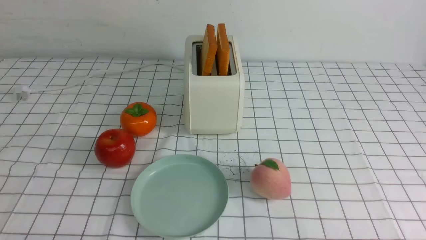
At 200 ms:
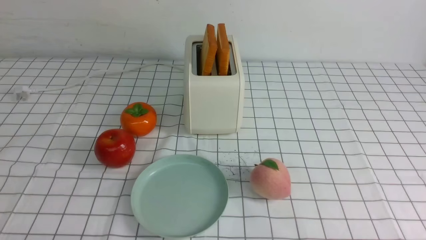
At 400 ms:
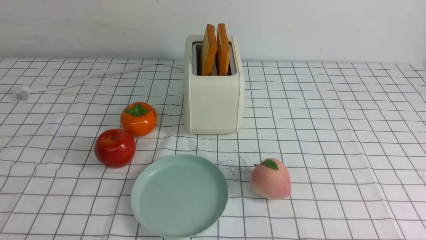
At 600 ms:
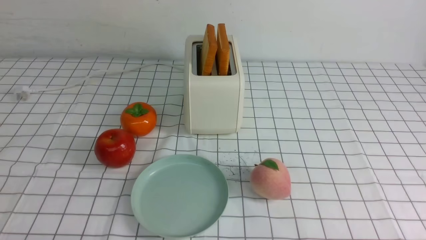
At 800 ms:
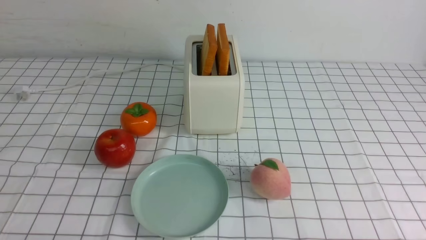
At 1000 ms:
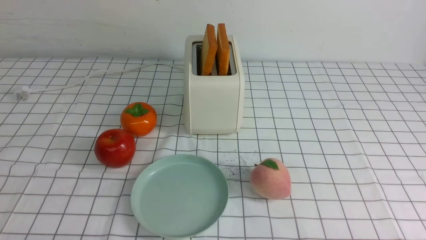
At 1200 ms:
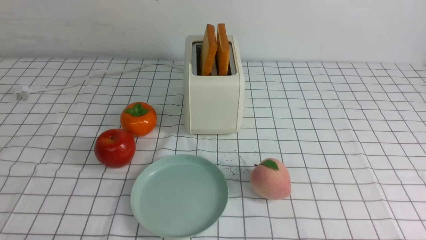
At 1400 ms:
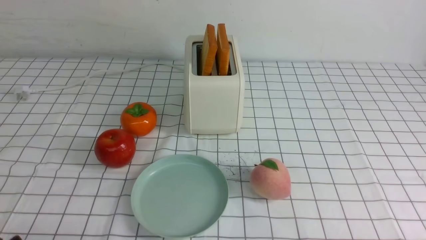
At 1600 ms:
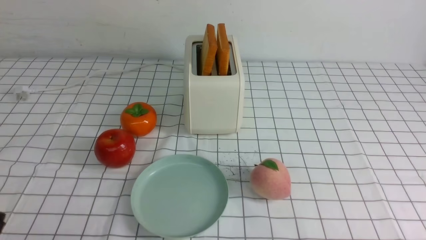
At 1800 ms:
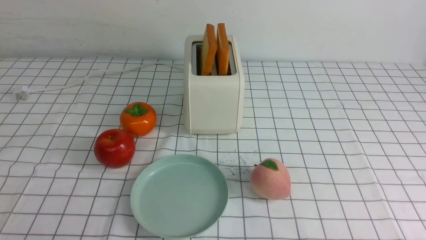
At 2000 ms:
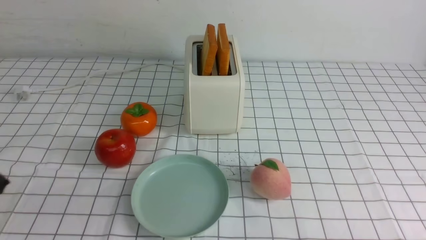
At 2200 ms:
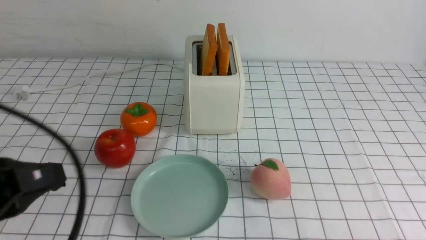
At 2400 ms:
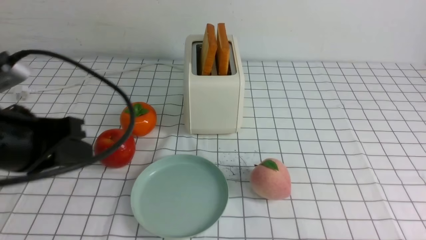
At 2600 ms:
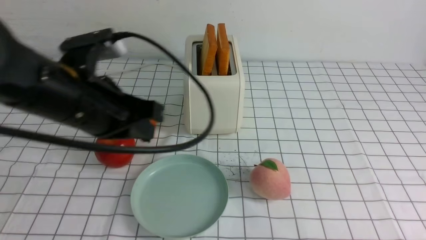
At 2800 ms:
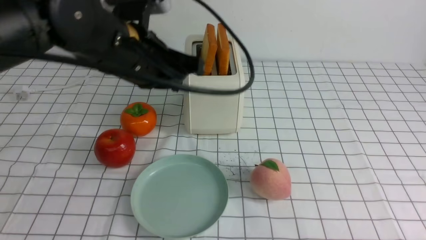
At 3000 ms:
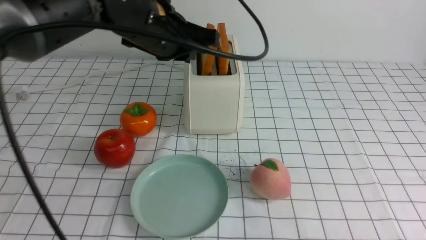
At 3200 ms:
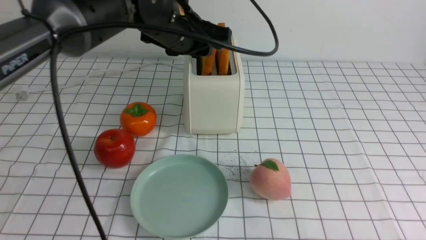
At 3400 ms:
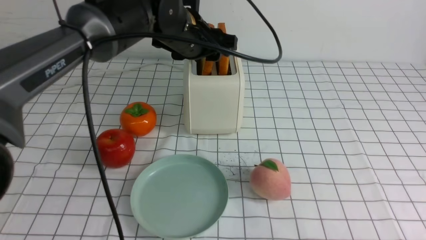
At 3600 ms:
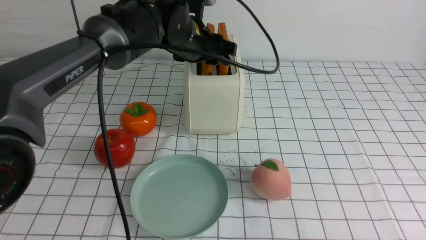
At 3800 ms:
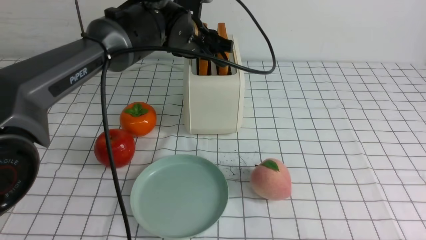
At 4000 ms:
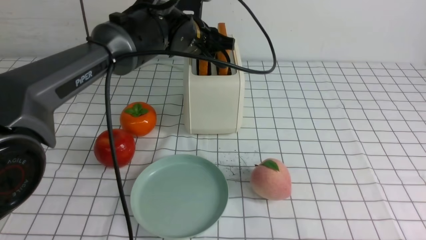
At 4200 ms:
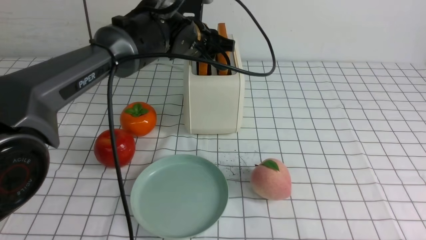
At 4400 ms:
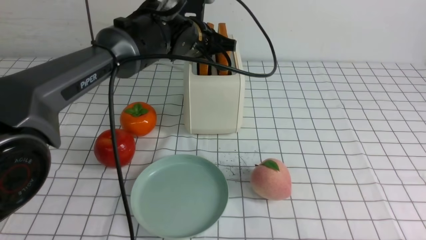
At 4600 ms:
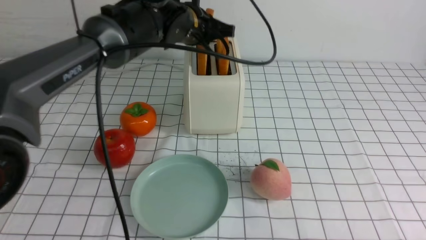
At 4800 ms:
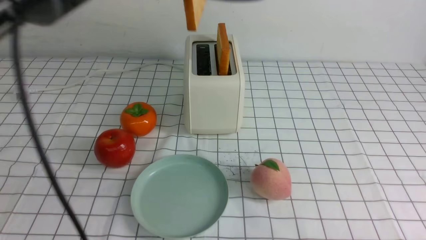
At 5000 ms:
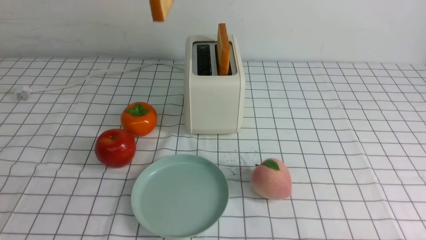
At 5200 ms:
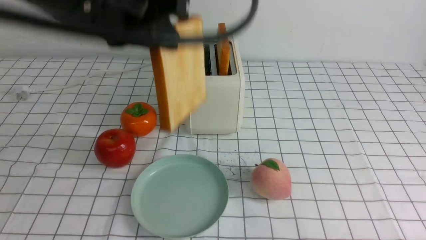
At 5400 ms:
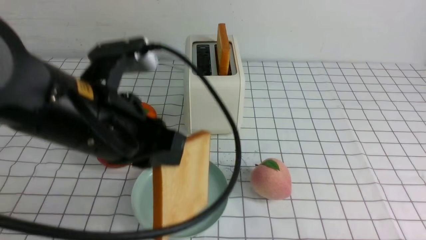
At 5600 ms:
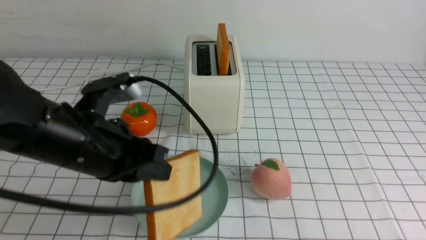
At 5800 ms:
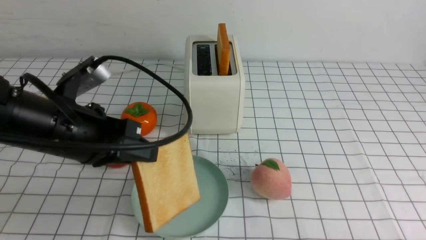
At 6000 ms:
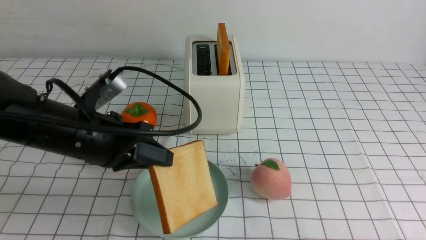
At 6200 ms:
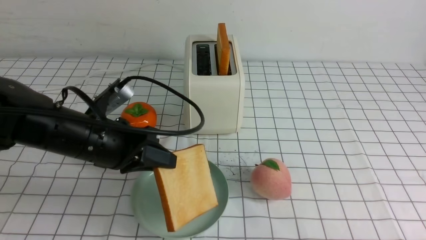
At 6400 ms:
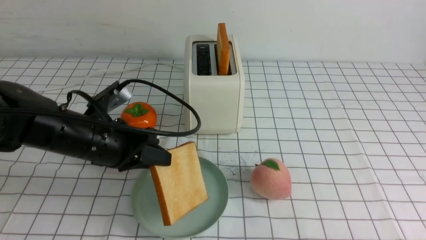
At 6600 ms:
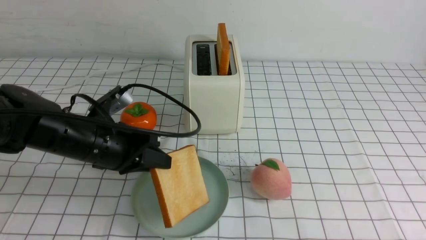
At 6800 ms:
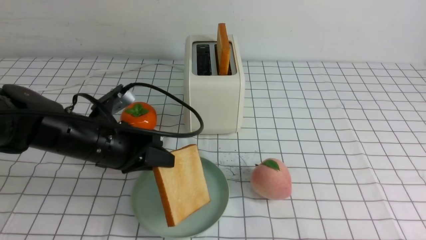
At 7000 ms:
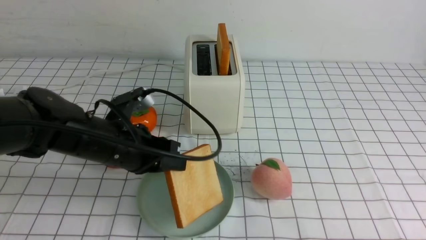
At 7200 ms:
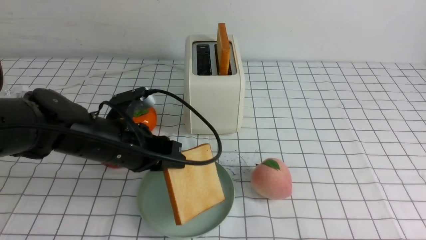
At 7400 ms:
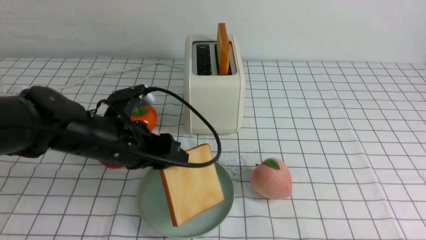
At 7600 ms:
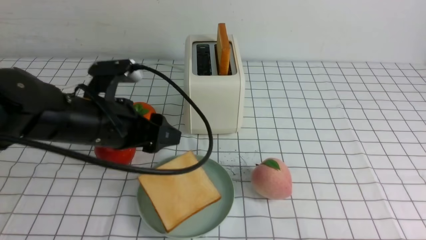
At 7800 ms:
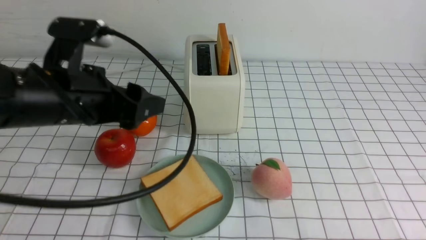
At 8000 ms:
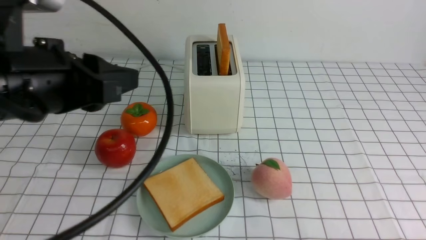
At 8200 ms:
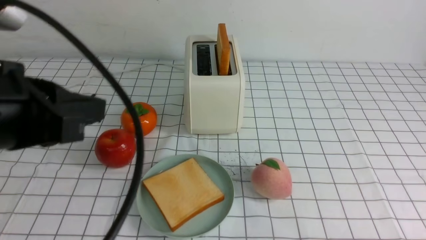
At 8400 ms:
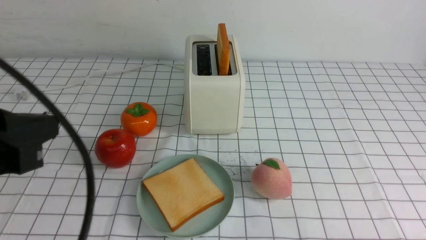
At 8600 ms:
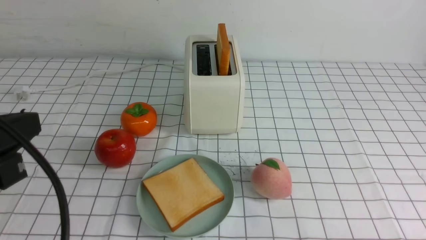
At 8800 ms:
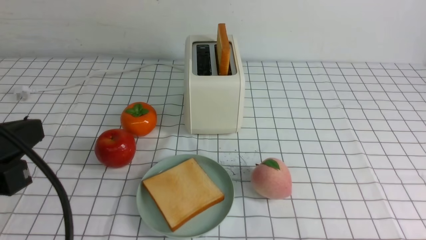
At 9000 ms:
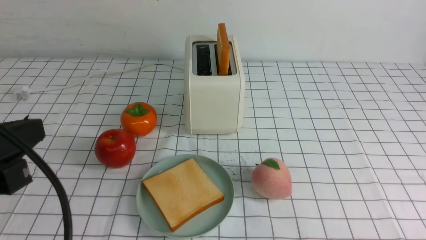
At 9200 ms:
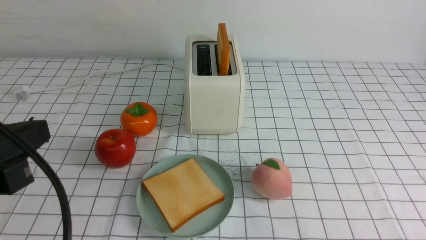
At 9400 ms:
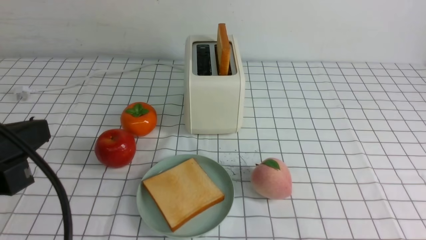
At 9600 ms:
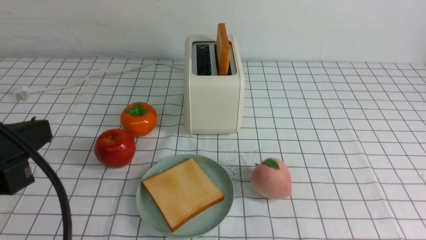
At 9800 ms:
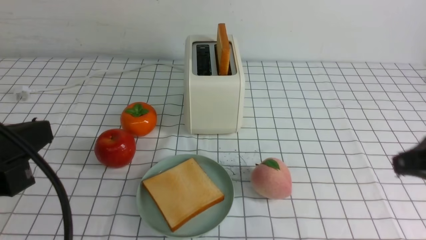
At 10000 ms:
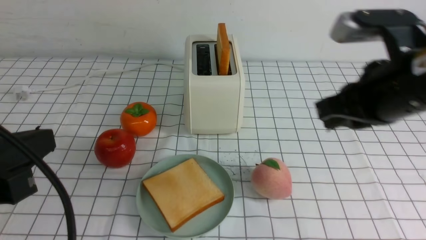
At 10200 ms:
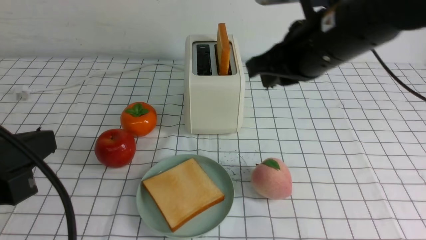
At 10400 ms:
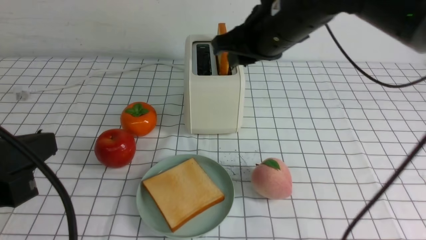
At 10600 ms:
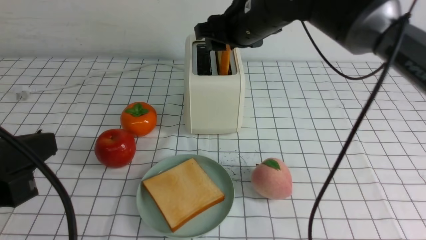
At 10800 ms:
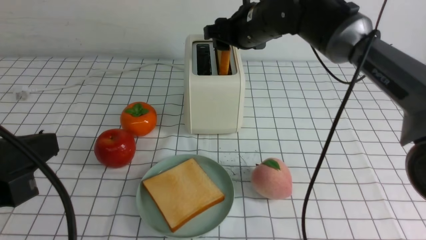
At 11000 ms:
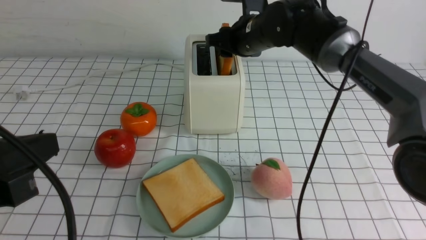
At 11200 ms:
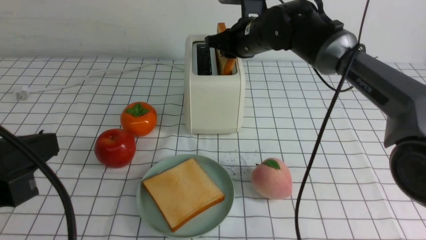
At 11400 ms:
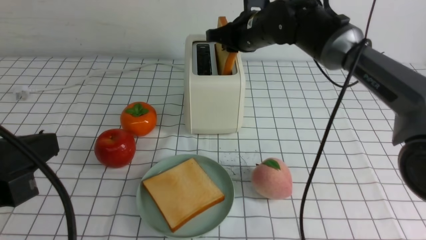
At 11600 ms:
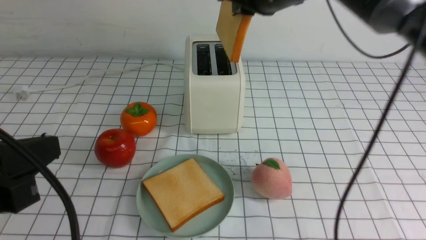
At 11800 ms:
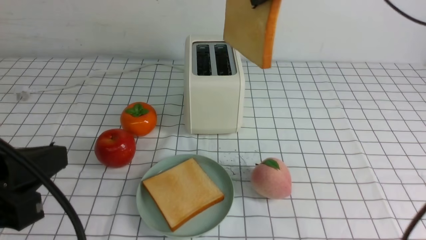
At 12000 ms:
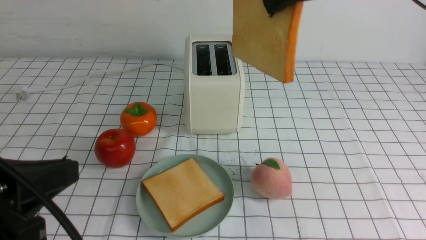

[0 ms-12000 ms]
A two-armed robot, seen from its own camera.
Task of the whole recording: take toasted bread from bread machine on white checkered table place on plate.
Step, 0 ms to 4600 ms: use the left arm to take out a slice of bread.
Step, 4800 ms to 7600 ms: use the left arm to put a slice of bread into the empty plate.
Step, 7800 ms to 11600 ms: use the right arm to take out a slice of bread.
1600 ms to 3000 ms: The left gripper moves forward, to the right and upward, approximately 40 cm.
3000 ms to 4400 ms: The left gripper heads forward, covering about 10 cm, and opens, then closes once more.
4400 ms to 6000 ms: The left gripper is displaced backward and to the left by some 20 cm.
6000 ms to 7600 ms: The left gripper opens.
7600 ms to 9000 ms: The left gripper shifts roughly 20 cm backward and to the left, and closes.
9000 ms to 10400 ms: The right gripper is displaced forward, to the left and upward by approximately 40 cm, and closes and opens again.
10400 ms to 12000 ms: The right gripper shifts approximately 10 cm upward, and goes forward and returns, roughly 10 cm each way.

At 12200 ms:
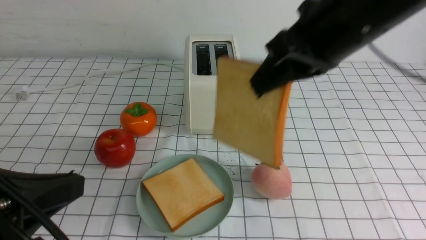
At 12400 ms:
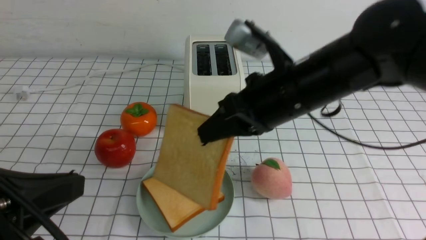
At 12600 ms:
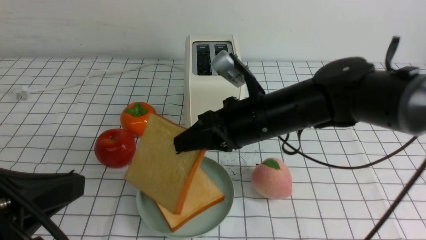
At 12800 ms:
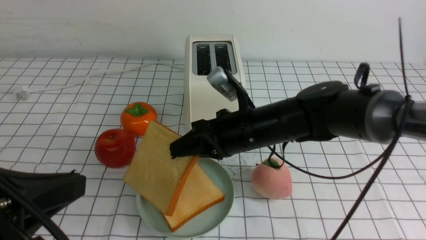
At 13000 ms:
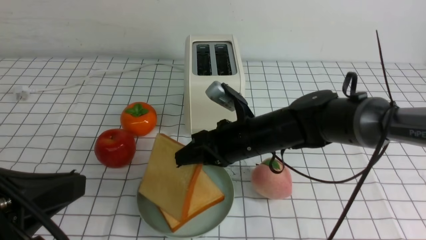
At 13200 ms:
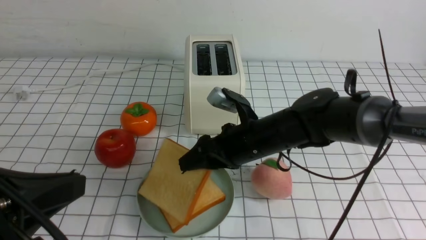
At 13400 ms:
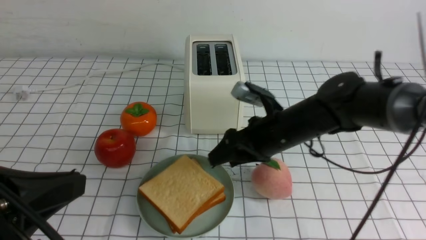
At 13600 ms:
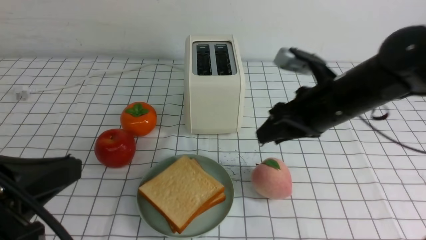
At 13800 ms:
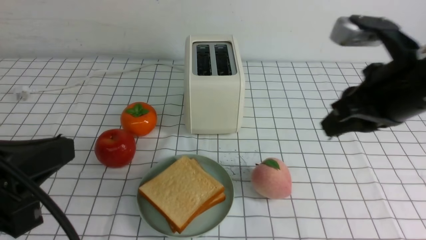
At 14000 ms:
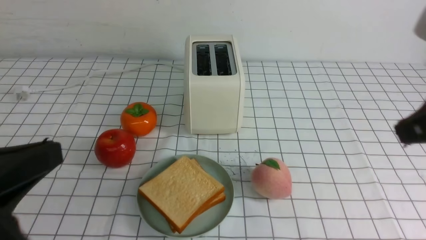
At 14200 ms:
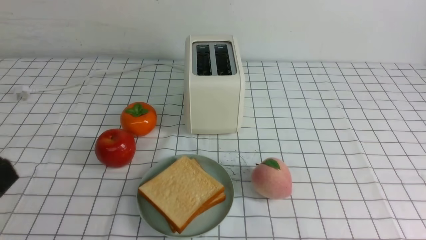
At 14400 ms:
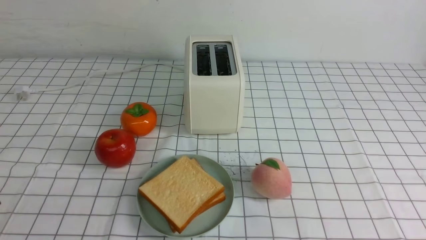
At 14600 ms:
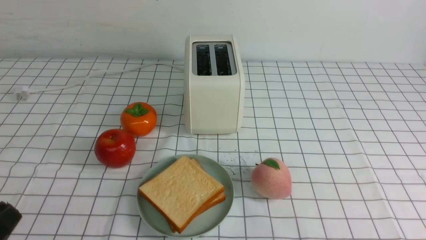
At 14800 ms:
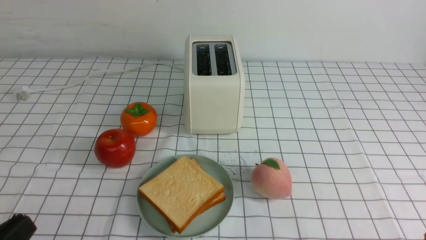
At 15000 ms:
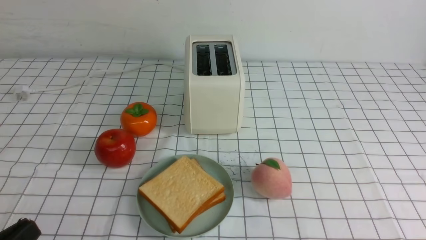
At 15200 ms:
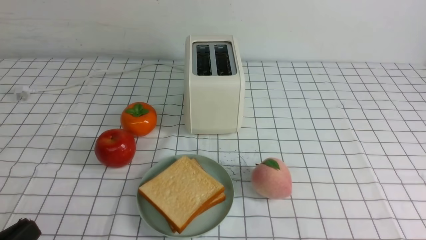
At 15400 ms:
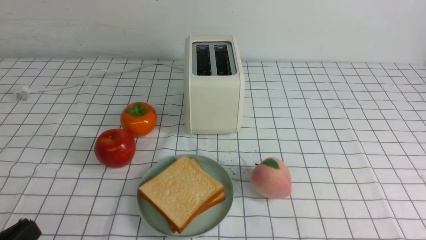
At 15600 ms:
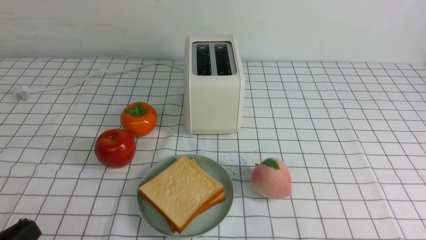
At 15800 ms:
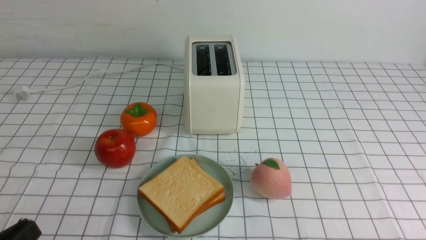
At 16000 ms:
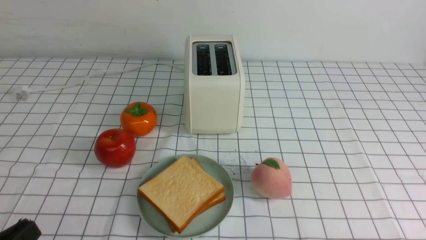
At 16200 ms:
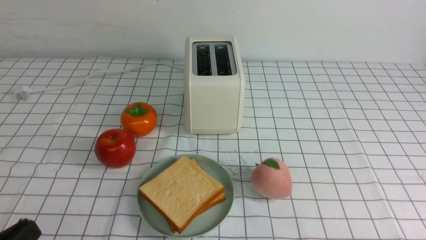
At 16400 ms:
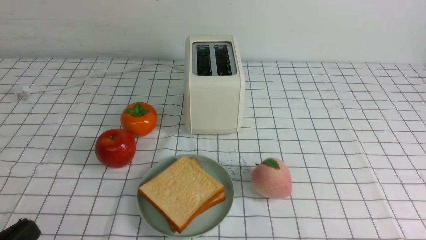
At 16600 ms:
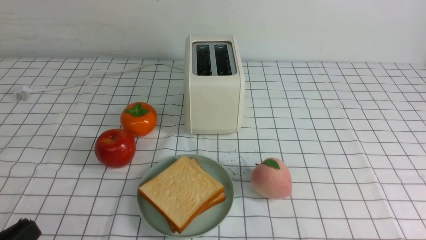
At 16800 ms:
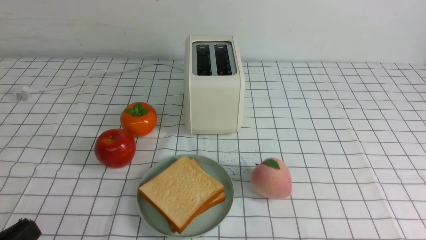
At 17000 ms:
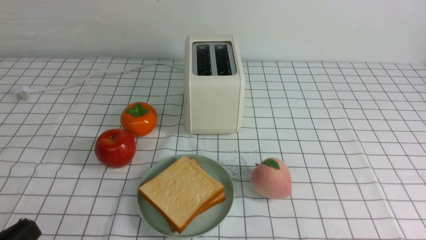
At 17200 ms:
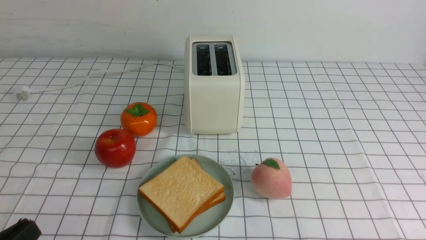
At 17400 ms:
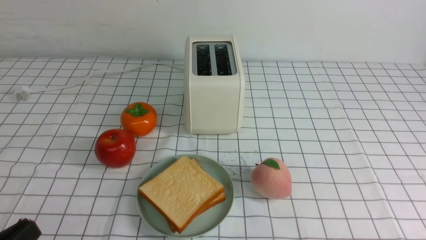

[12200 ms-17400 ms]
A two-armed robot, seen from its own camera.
Task of the whole recording: take toasted bread from bread machine on white checkered table place on plate.
Step, 12200 ms to 13400 ms: use the right arm to put a slice of bread into the plate.
12200 ms to 14000 ms: The right gripper shifts roughly 20 cm to the right and backward, moves about 20 cm downward and comes back, and opens and closes again.
14000 ms to 15600 ms: The right gripper is displaced downward and backward by roughly 25 cm, while the left gripper moves downward, some 10 cm.
